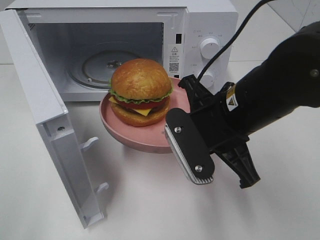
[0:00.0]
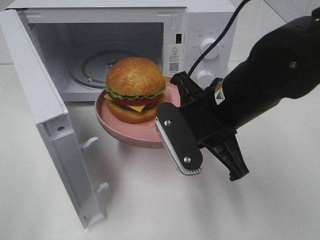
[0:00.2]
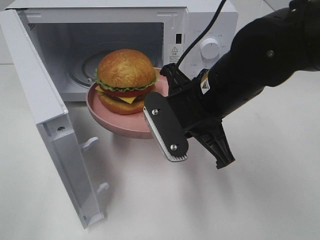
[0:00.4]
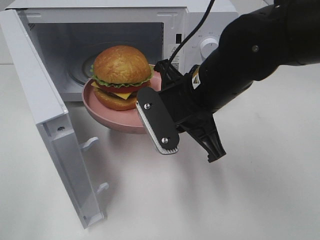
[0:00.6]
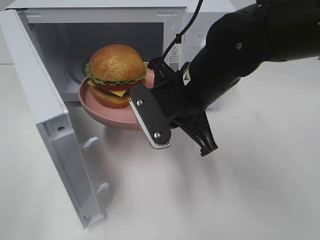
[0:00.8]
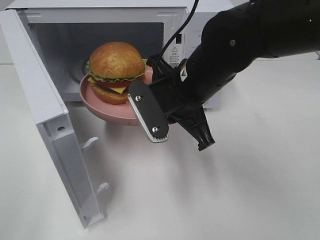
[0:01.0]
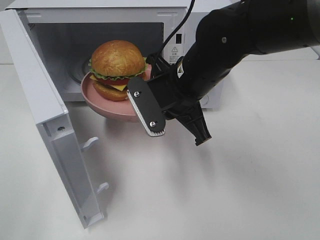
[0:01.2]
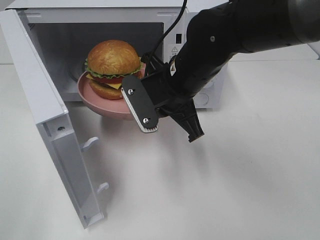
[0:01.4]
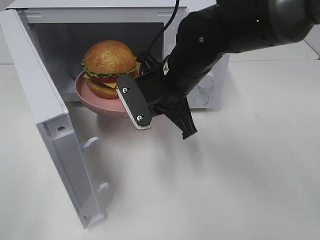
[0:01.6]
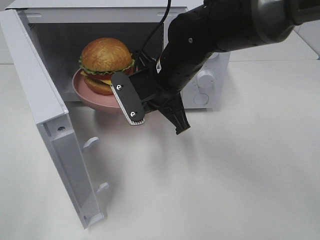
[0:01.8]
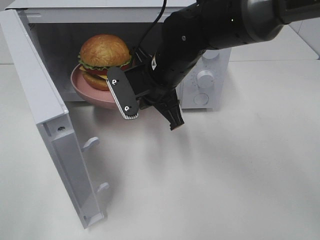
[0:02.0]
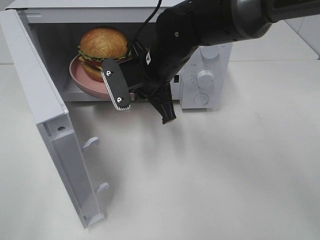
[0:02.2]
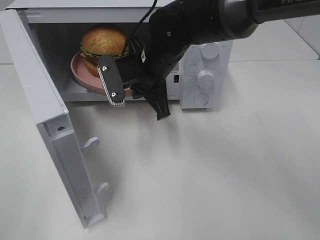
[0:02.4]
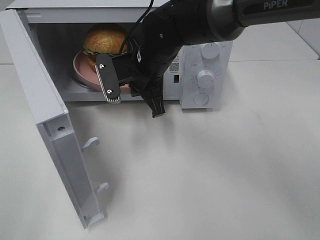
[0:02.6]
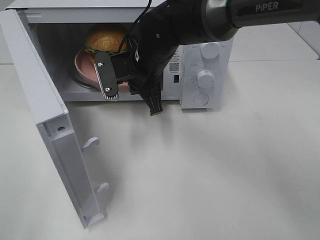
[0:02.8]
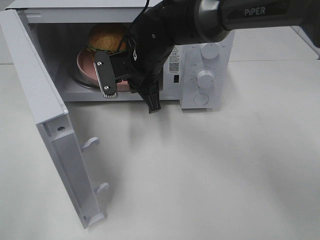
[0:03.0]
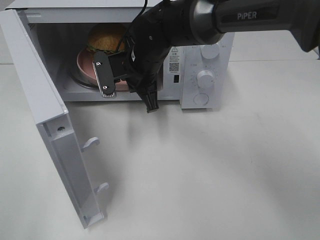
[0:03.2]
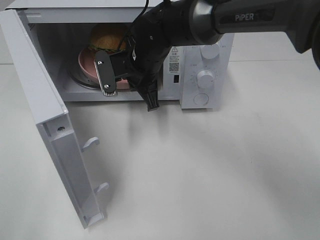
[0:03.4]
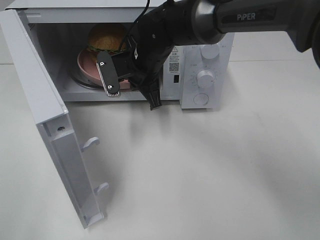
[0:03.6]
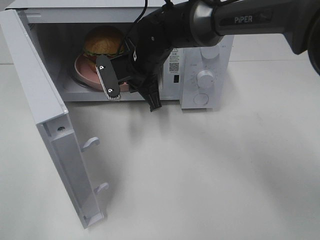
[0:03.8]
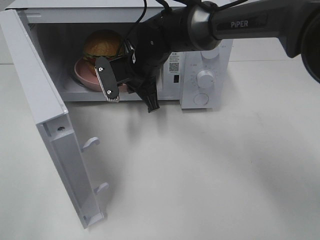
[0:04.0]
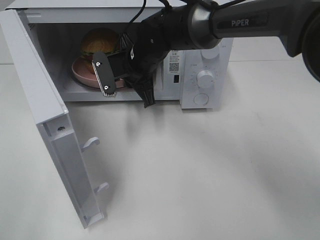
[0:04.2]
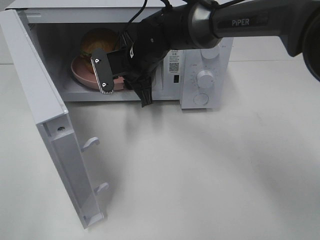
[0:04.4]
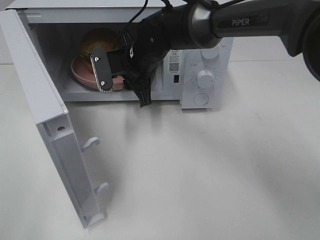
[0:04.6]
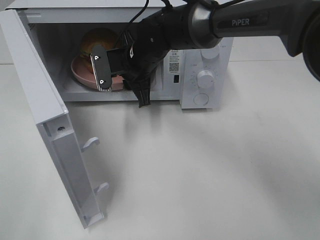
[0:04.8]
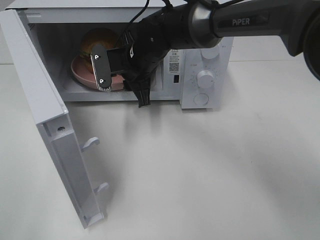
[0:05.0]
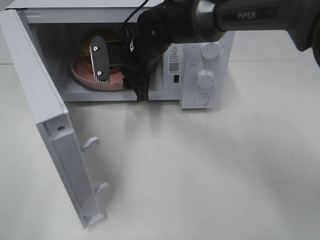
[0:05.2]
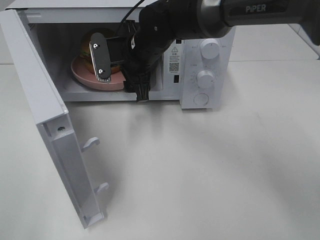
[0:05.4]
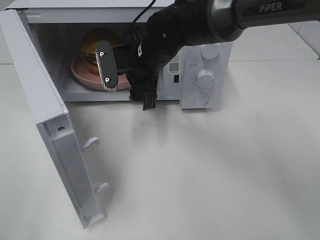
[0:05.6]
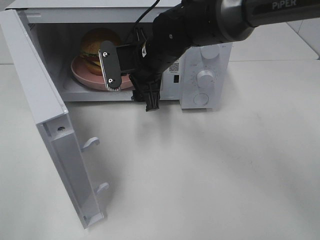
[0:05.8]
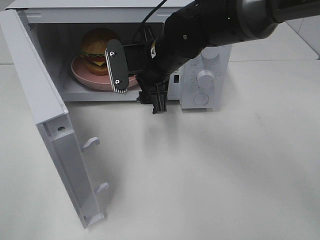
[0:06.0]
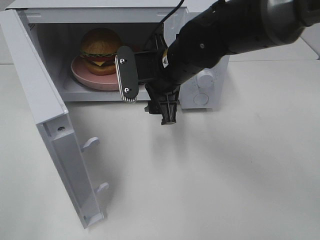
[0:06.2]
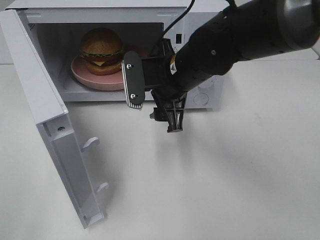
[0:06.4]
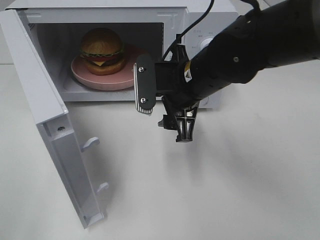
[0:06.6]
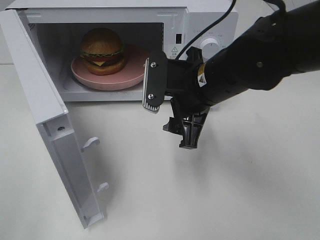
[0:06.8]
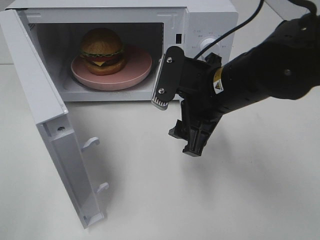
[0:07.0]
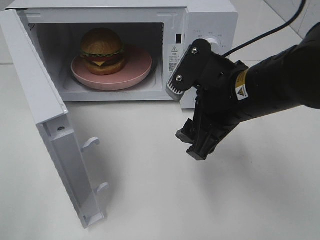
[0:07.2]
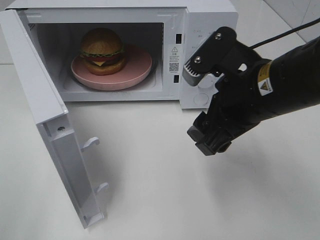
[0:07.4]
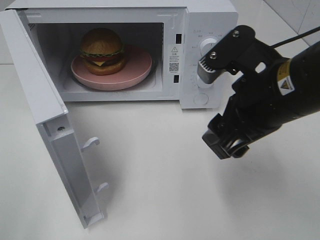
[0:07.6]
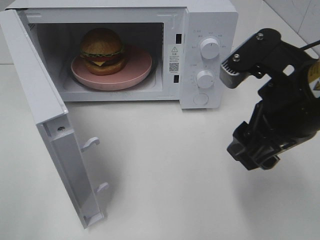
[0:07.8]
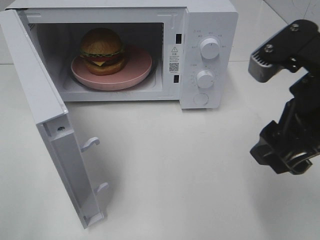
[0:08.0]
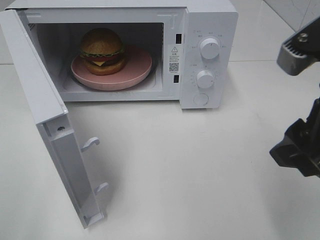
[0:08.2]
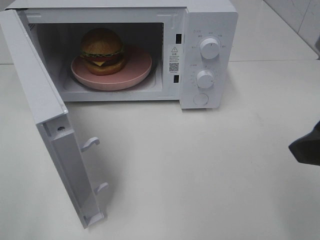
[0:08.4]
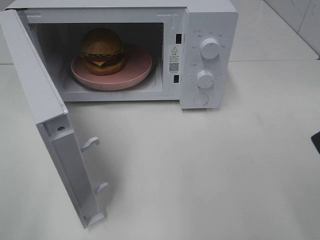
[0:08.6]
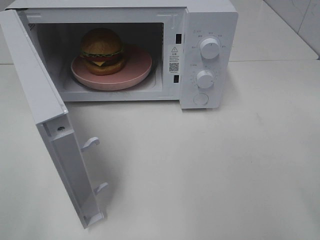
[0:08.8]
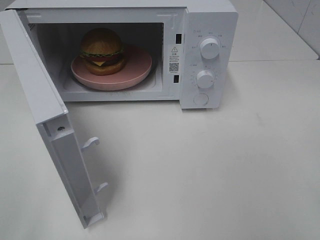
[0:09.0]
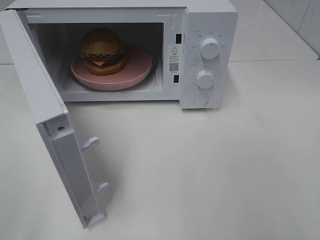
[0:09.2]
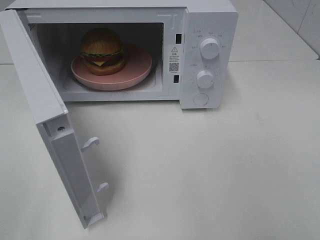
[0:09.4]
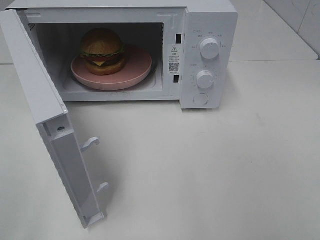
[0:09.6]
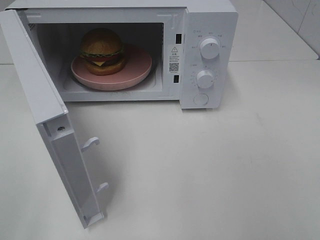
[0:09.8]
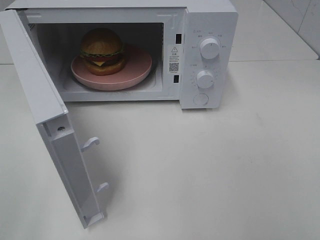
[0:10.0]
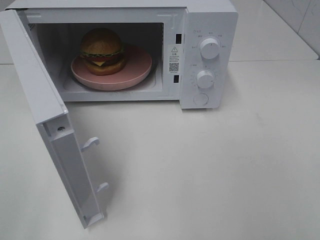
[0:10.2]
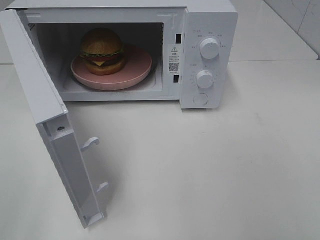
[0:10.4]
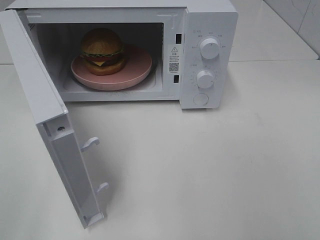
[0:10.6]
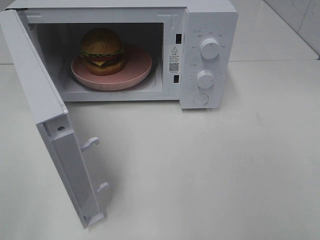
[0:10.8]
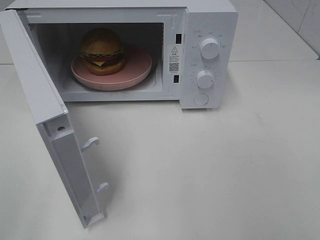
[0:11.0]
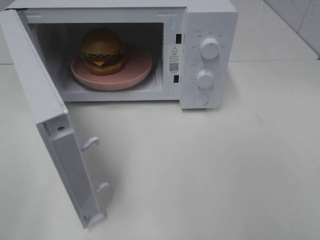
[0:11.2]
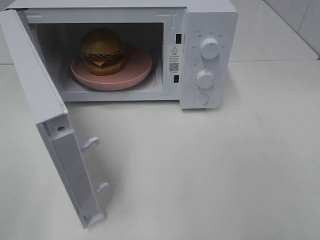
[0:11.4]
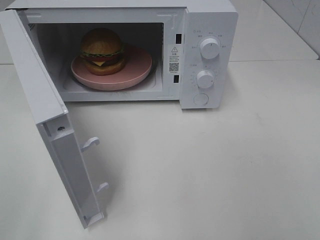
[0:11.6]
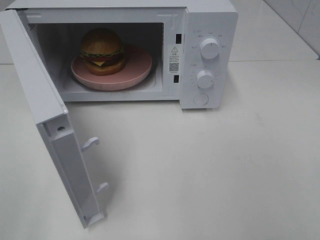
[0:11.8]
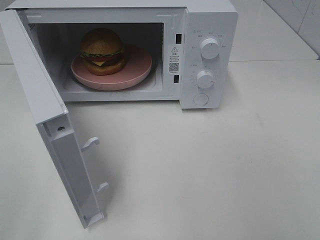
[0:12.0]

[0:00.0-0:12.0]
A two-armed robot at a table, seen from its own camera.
Task of the whole recording: Heat the burger.
Step, 0:00.0 to 0:05.4: Right hand: place the plate in the microwave.
0:00.0 to 0:01.6: The right gripper heads forward and to the left, covering some 10 cm.
0:01.6 to 0:03.0: The right gripper shifts some 5 cm forward.
0:03.0 to 0:04.4: The right gripper opens its fingers.
0:04.4 to 0:06.0: The right gripper travels backward by roughly 5 cm, and opens.
0:06.0 to 0:07.6: The right gripper moves backward and to the right, roughly 20 cm.
0:07.6 to 0:09.0: The right gripper moves to the right, backward and upward, some 20 cm.
0:10.4 to 0:12.0: Neither gripper changes place.

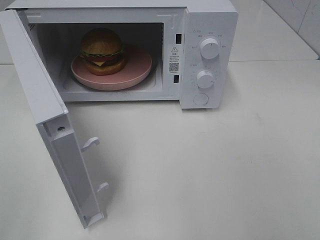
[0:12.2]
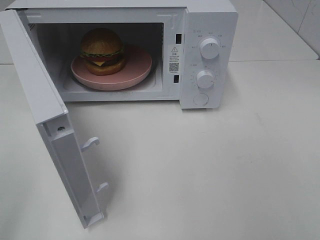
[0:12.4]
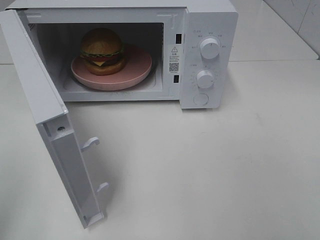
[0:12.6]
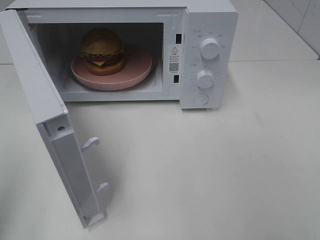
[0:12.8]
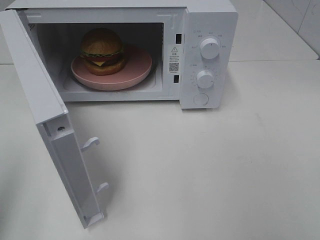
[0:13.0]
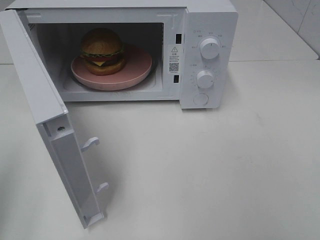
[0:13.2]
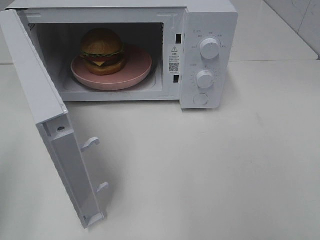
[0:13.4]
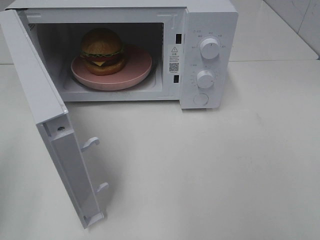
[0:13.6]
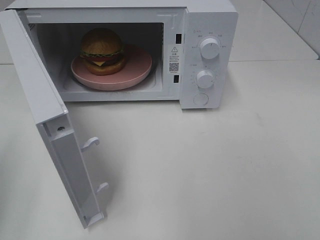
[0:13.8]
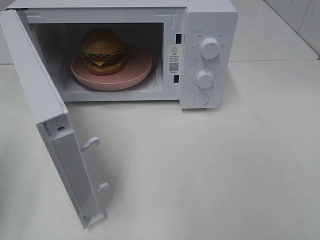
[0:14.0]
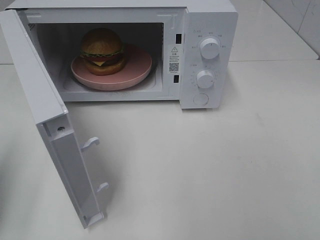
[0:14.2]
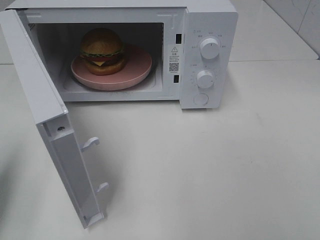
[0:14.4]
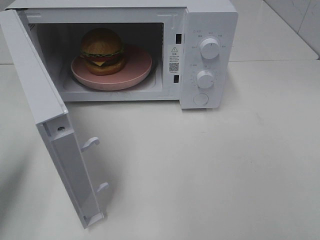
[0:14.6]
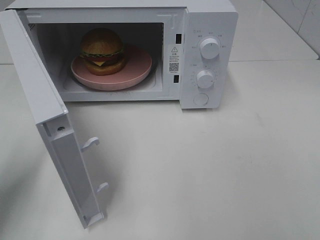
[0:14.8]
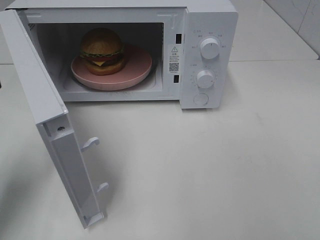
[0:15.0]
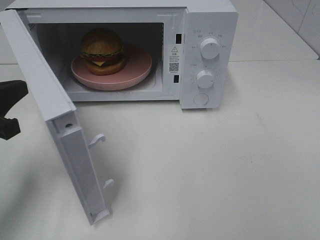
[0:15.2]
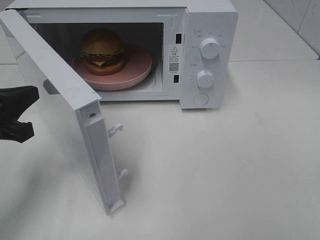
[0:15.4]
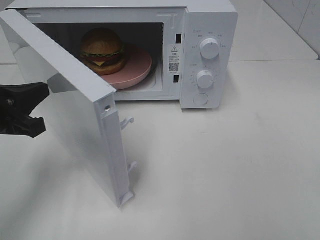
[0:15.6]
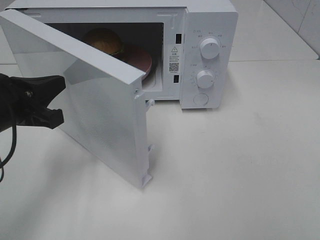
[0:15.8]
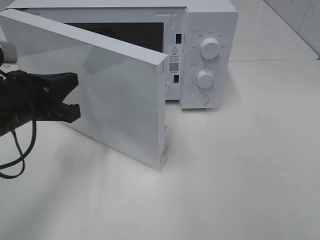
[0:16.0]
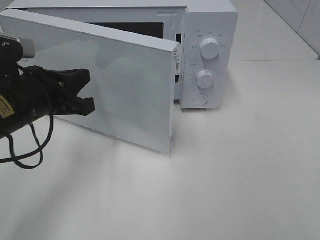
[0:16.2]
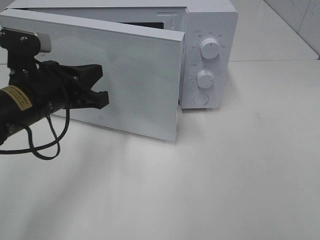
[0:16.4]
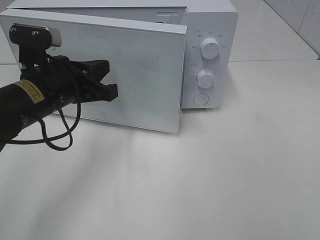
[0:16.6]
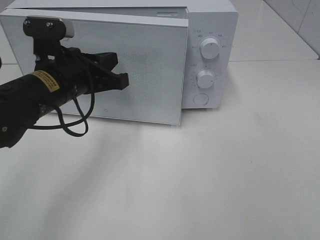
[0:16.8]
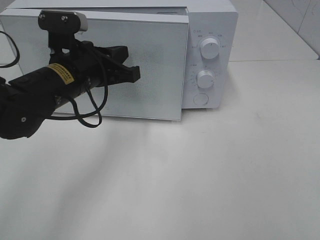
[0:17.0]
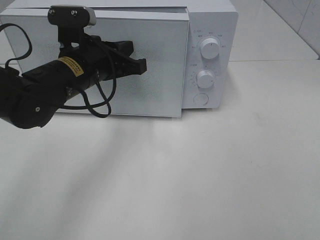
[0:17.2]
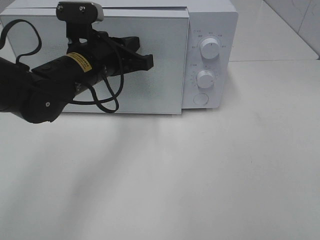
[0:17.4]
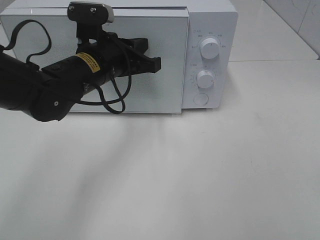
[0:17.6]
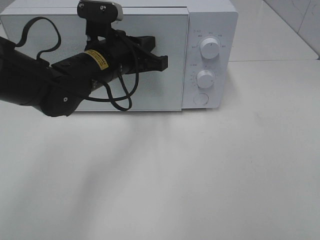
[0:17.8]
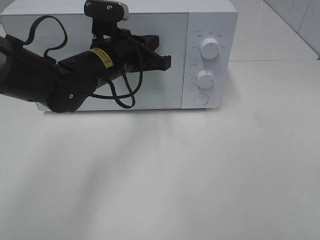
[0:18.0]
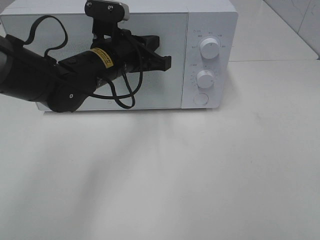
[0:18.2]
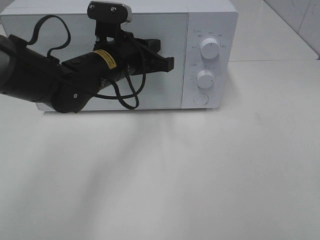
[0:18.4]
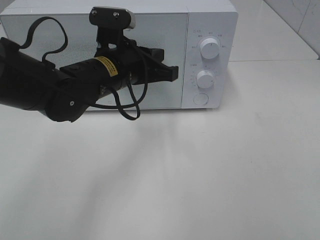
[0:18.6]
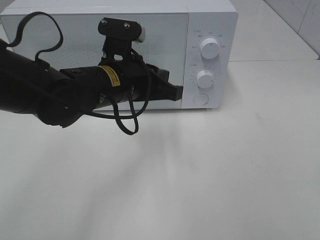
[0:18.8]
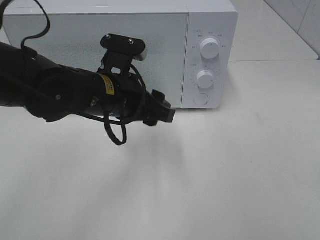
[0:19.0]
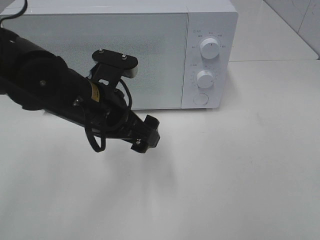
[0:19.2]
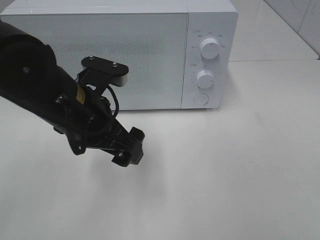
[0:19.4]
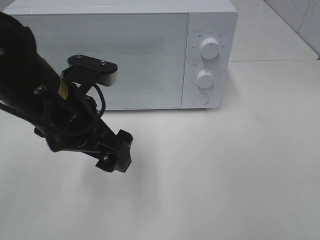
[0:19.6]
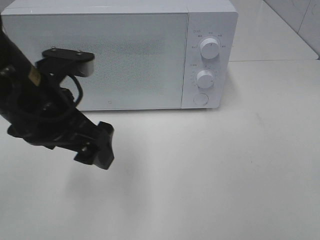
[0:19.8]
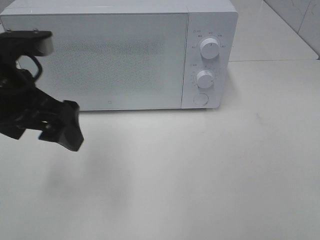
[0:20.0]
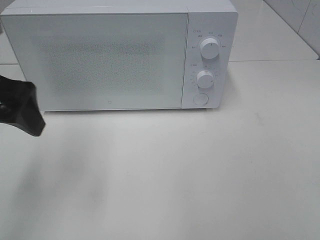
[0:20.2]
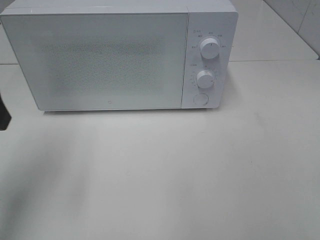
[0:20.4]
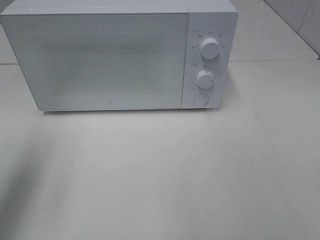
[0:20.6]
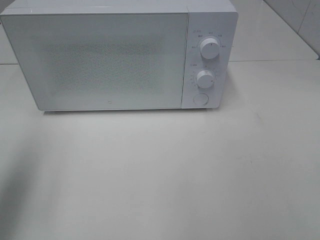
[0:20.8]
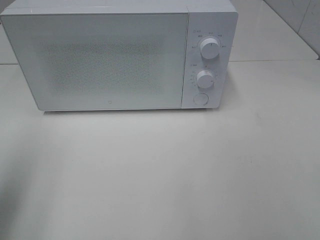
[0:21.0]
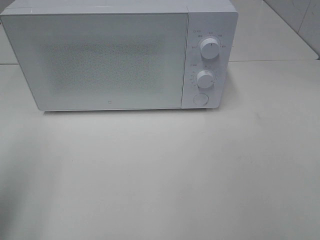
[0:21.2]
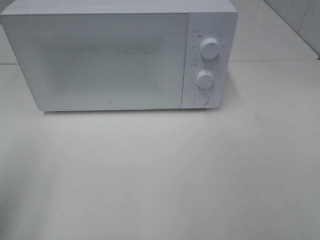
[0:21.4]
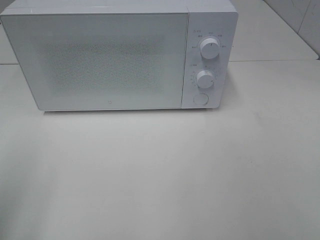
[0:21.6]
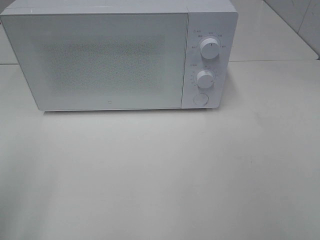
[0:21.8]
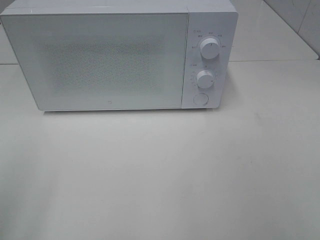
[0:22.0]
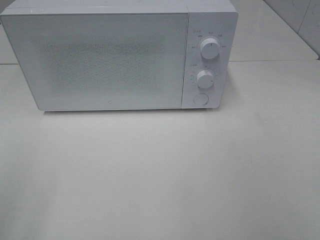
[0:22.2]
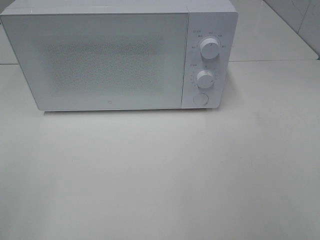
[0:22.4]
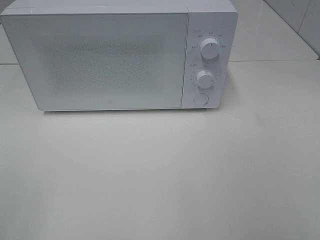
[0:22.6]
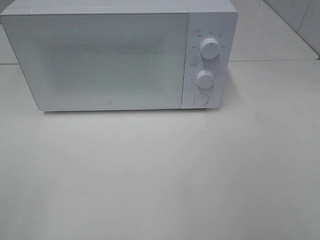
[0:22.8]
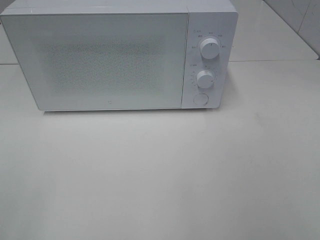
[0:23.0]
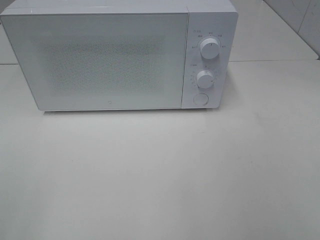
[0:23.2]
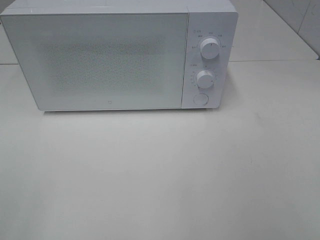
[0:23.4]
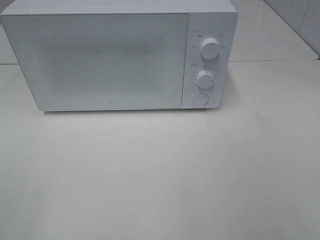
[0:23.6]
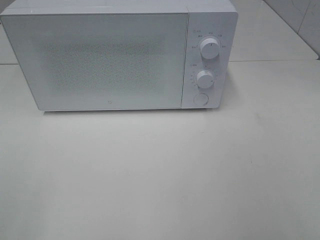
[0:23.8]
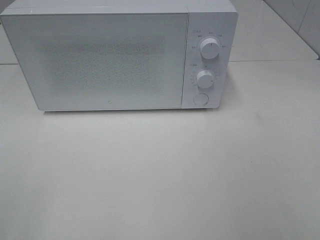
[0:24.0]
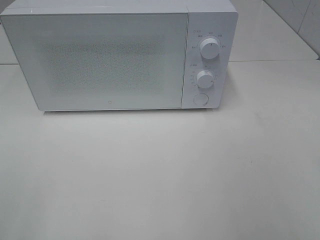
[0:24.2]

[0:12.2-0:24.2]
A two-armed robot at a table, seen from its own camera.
Task of the whole recording: Heat the burger.
Step, 0:12.2 to 0:18.6: Left hand: close the microwave door.
0:13.8 to 0:15.2: The left gripper travels forward, to the right and downward by approximately 15 cm.
0:15.2 to 0:16.6: The left gripper is displaced to the right and forward by approximately 15 cm.
0:16.6 to 0:18.2: The left gripper travels forward and to the right by about 10 cm.
0:18.2 to 0:19.8: The left gripper moves backward and to the left, roughly 15 cm, and opens.
0:19.8 to 0:21.2: The left gripper is displaced to the left and backward by roughly 20 cm.
0:21.2 to 0:22.6: The left gripper moves backward, about 15 cm.
